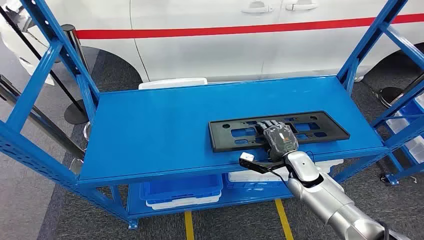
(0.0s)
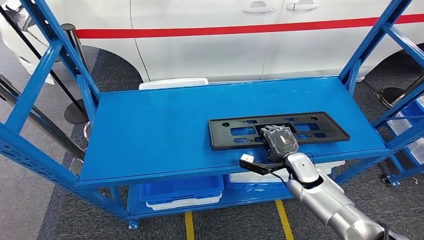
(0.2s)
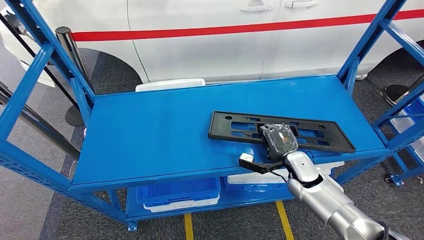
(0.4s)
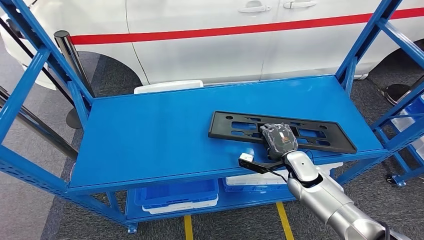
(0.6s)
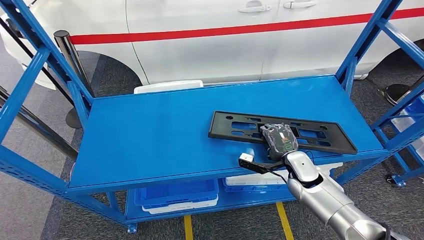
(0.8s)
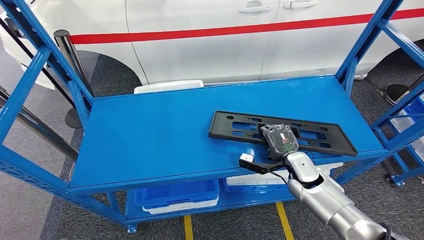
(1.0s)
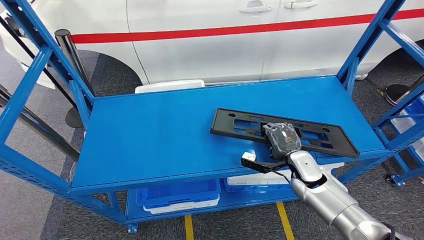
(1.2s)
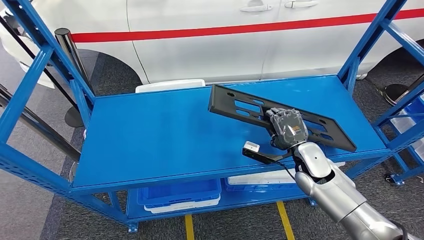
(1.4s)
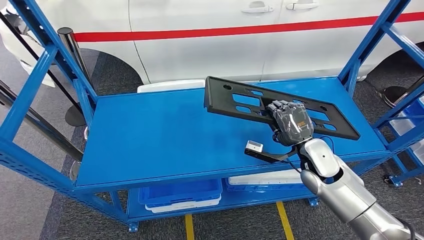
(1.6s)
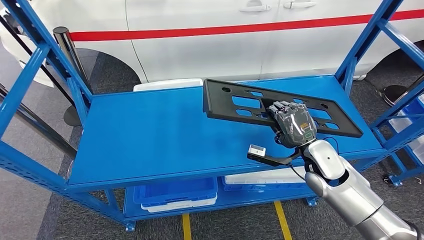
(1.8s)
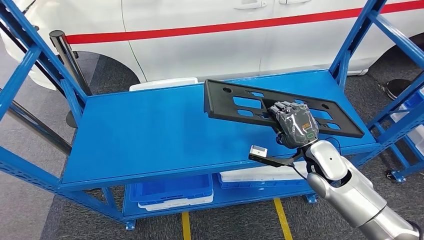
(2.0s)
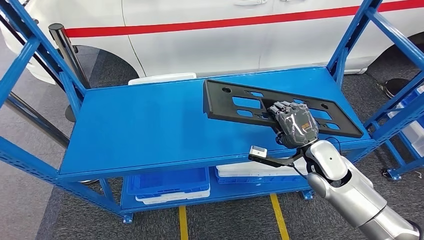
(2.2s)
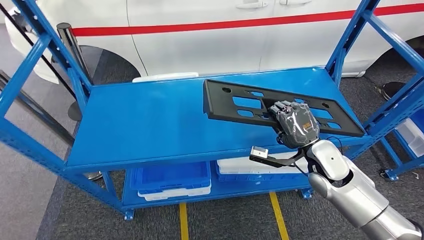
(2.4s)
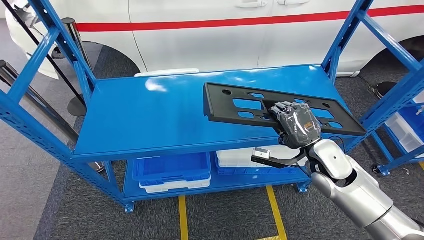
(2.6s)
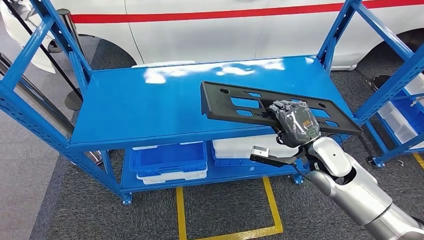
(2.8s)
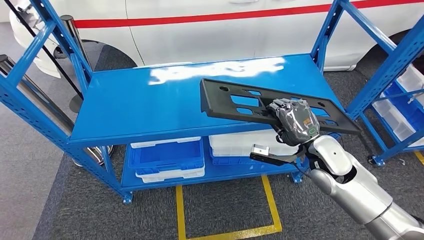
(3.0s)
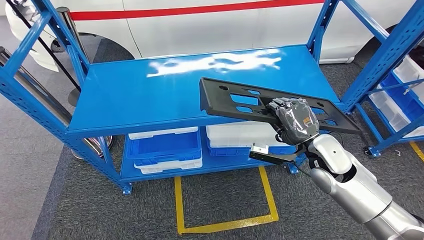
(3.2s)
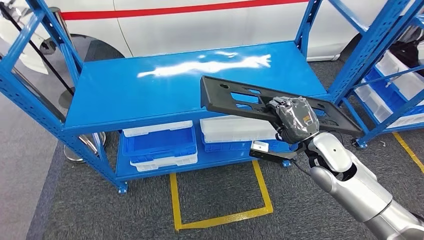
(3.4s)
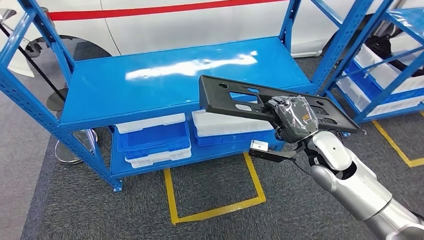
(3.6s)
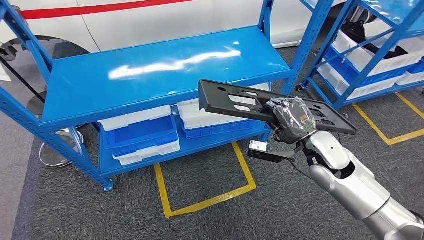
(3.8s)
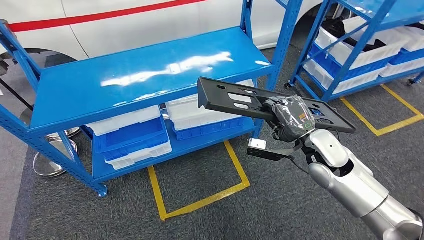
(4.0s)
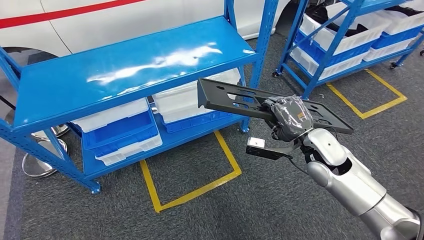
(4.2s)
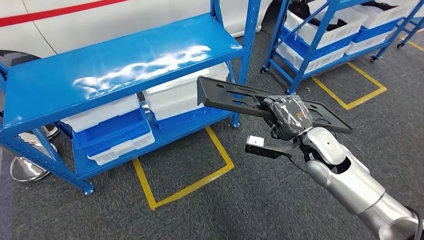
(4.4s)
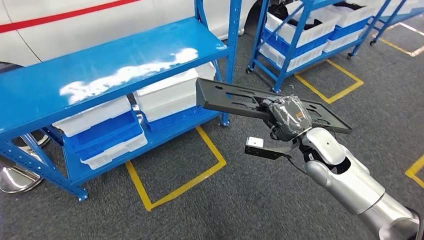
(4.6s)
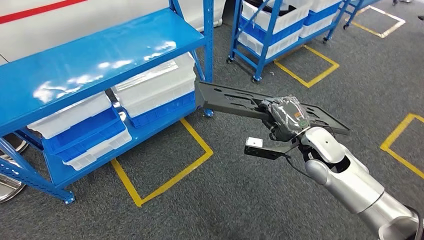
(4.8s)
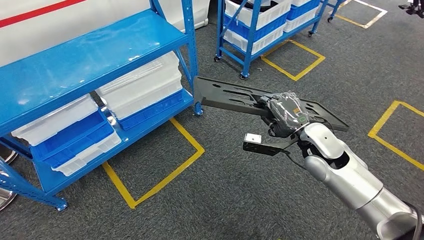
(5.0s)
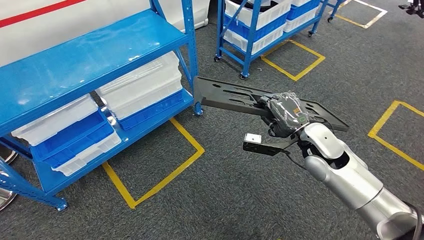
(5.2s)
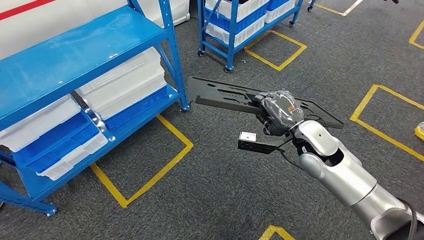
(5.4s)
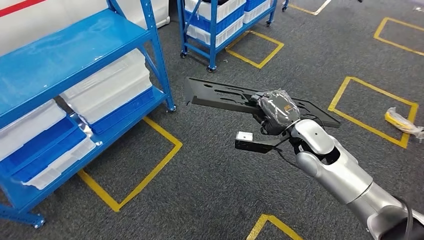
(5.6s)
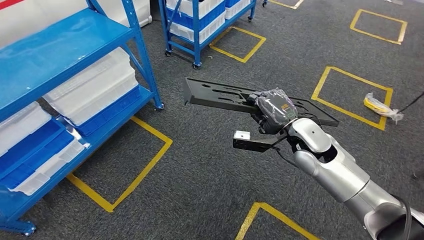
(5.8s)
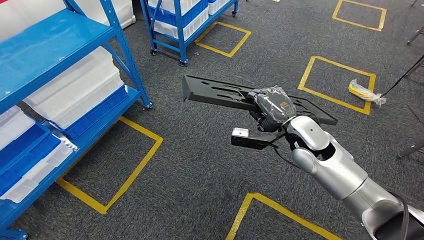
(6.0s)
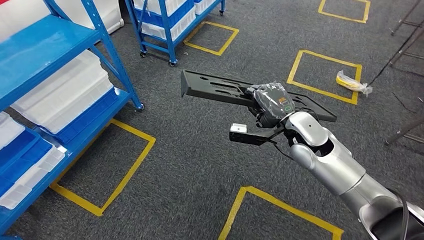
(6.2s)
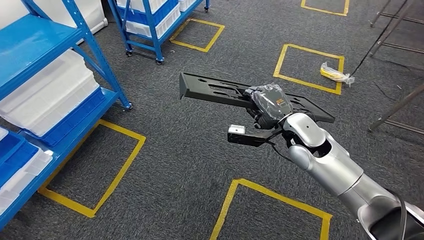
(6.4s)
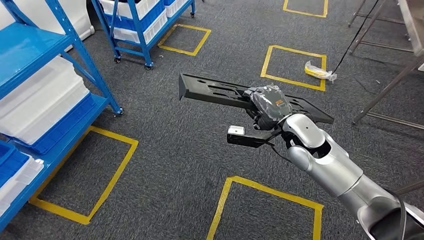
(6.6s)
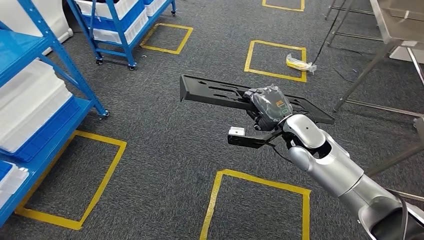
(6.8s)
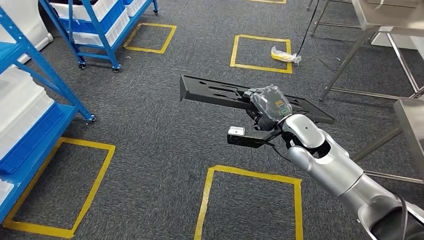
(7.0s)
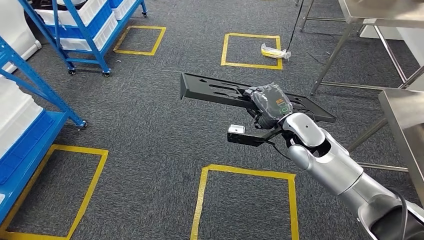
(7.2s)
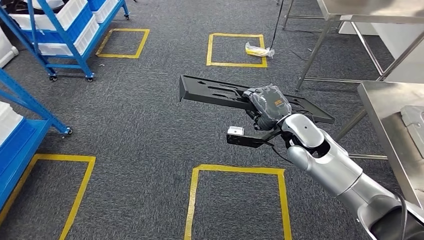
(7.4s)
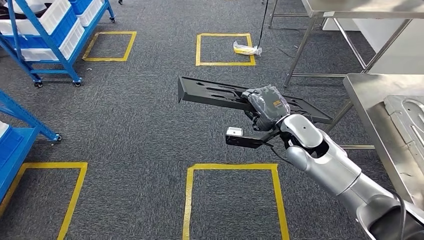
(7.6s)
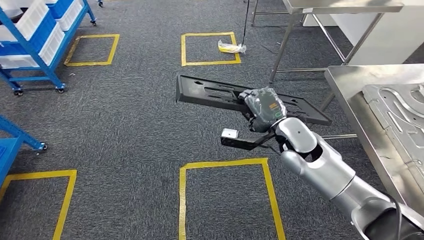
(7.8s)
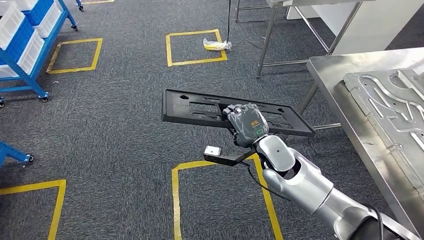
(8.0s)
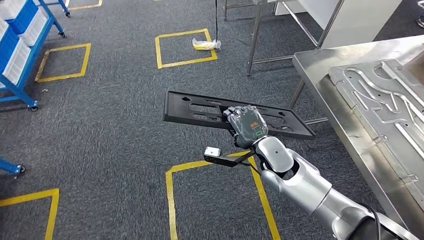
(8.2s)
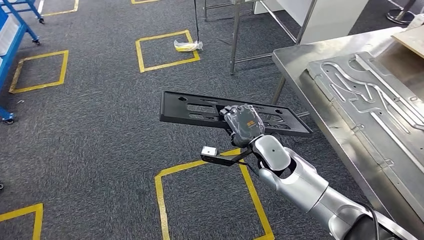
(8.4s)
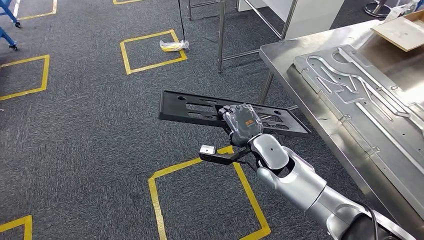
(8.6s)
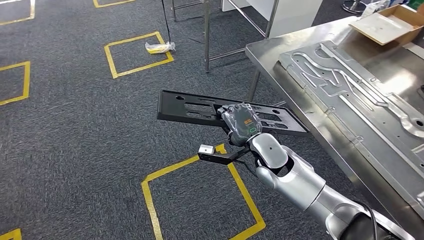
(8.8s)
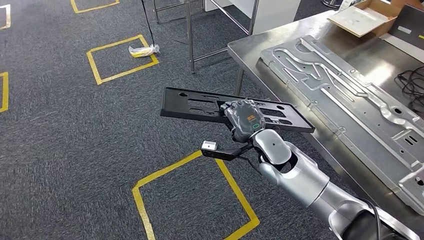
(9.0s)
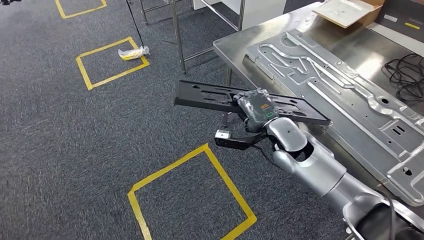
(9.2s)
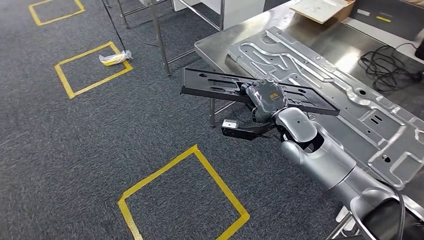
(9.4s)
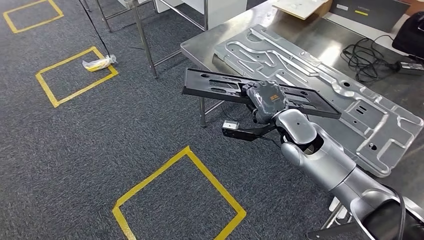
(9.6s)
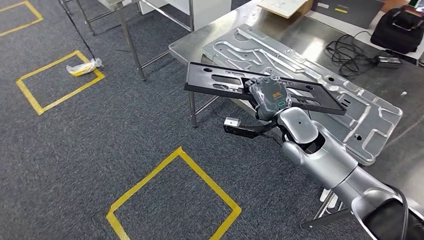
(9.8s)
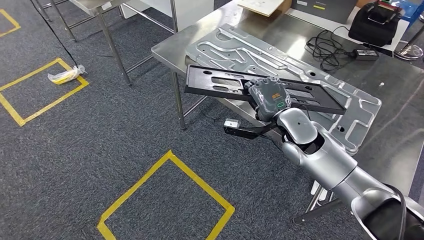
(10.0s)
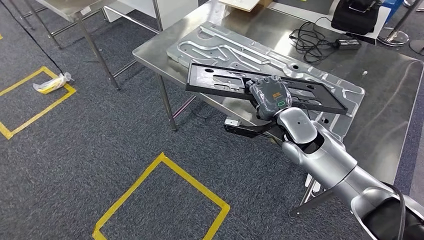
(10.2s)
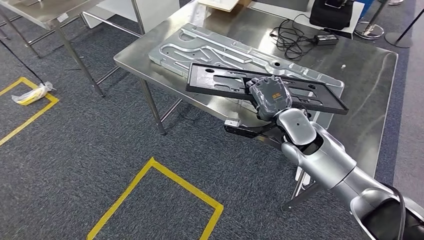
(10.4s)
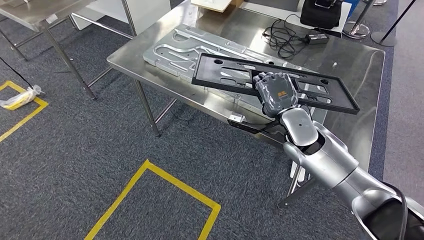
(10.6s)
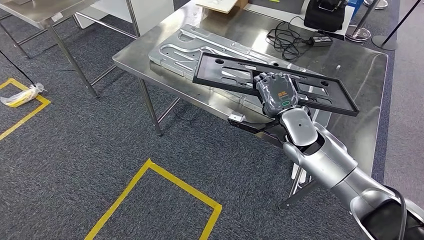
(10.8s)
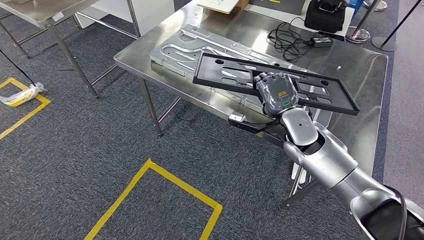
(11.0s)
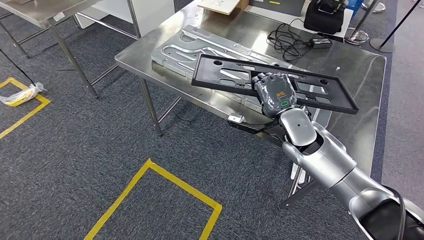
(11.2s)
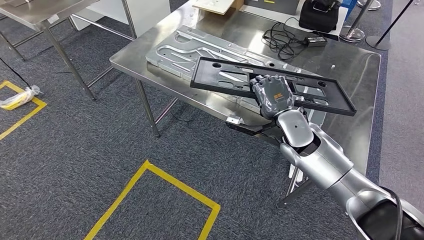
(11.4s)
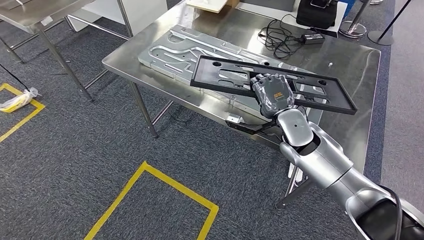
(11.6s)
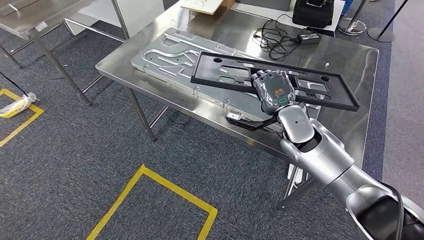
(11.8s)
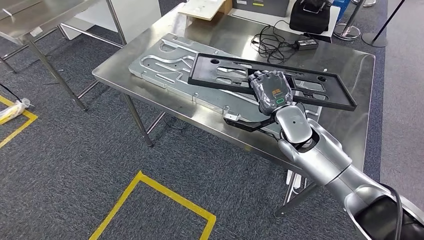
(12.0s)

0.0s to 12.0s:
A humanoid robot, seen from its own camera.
Step, 0.0s to 2.4s: Pick up the large material from the shelf.
Step, 4.2s to 11.6s: Move the large material to the front of the workbench.

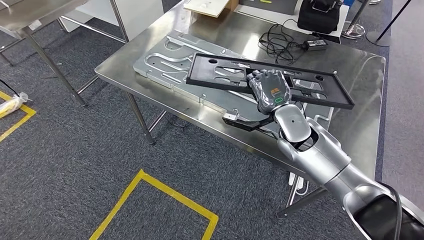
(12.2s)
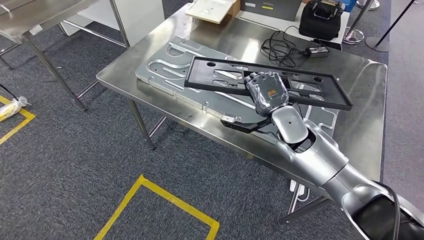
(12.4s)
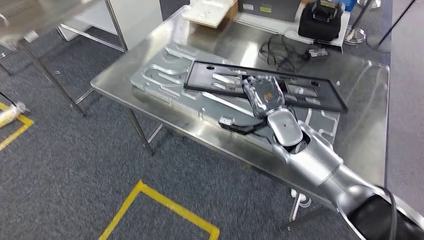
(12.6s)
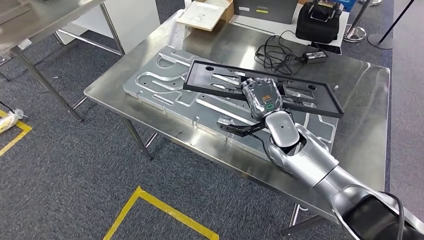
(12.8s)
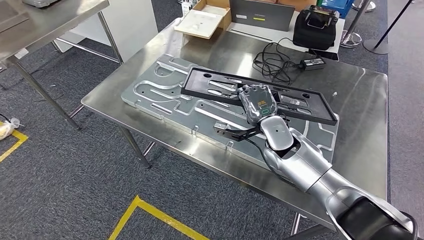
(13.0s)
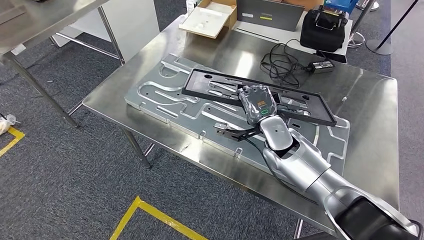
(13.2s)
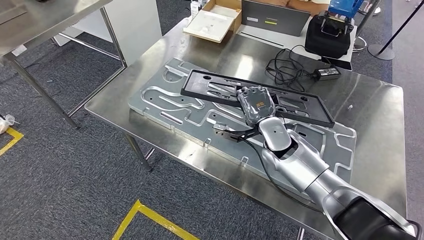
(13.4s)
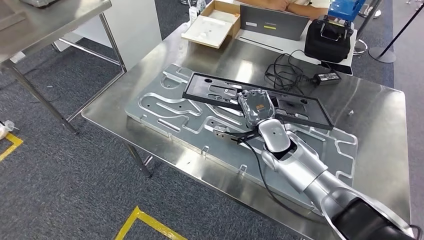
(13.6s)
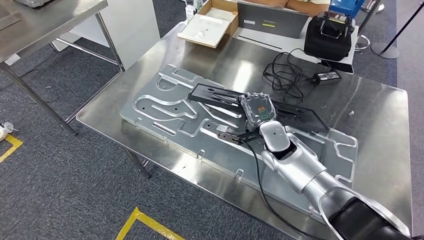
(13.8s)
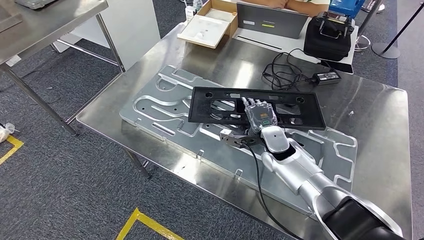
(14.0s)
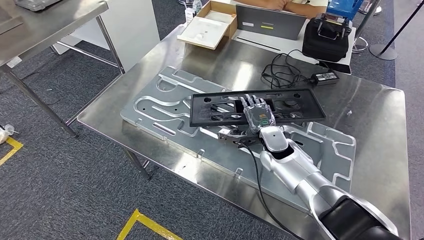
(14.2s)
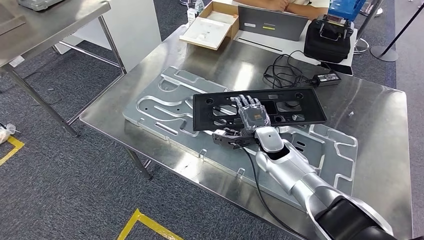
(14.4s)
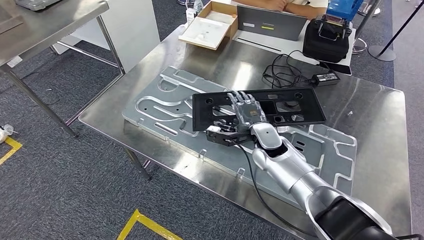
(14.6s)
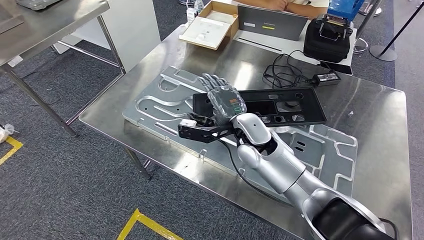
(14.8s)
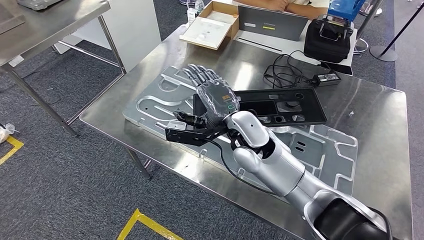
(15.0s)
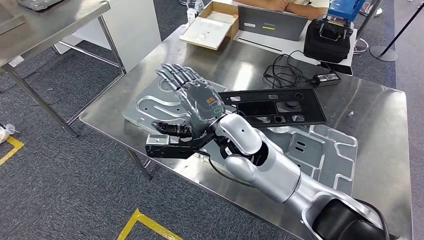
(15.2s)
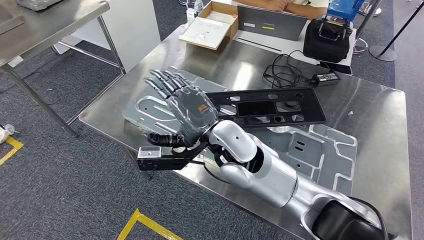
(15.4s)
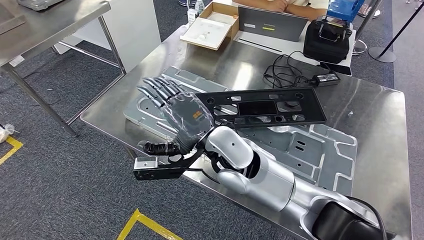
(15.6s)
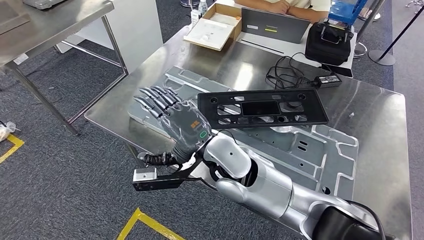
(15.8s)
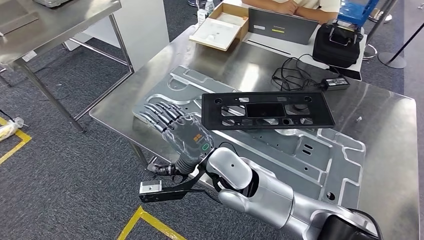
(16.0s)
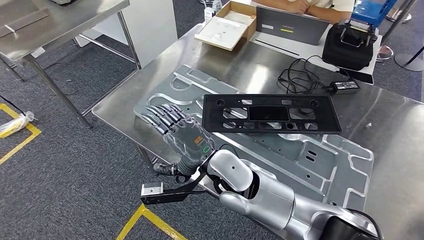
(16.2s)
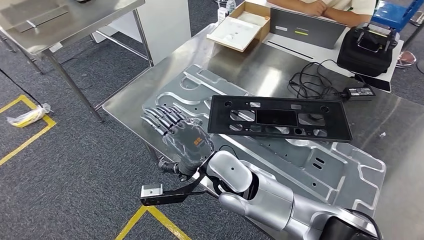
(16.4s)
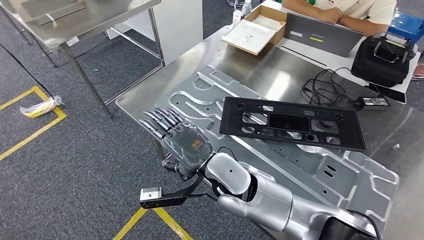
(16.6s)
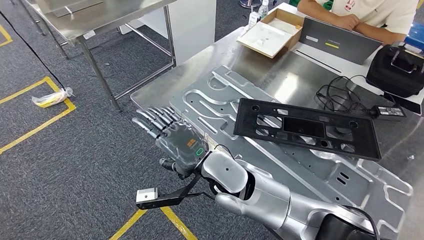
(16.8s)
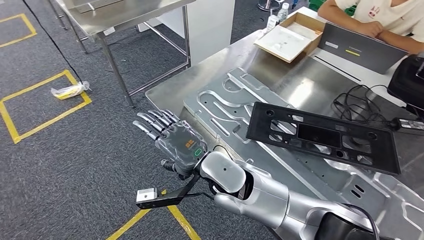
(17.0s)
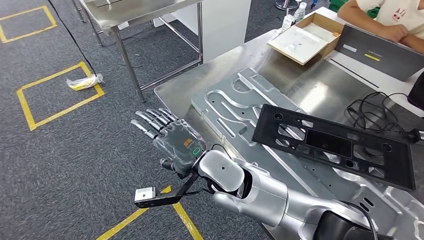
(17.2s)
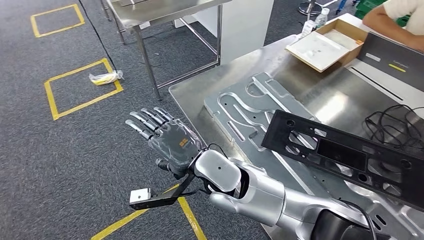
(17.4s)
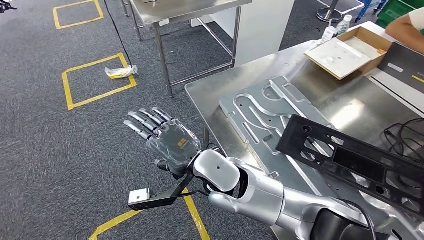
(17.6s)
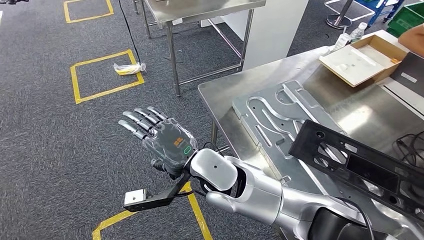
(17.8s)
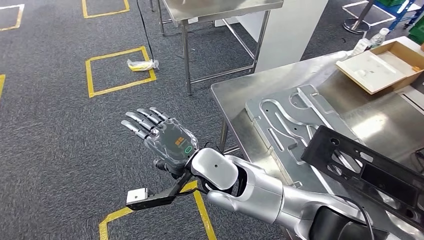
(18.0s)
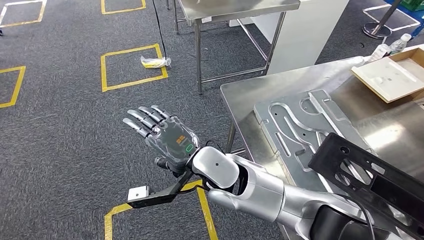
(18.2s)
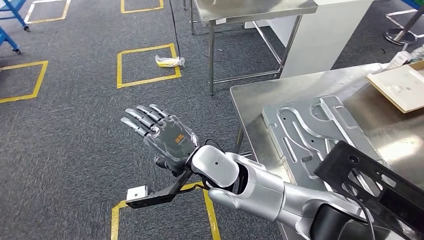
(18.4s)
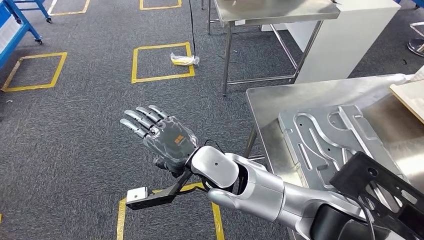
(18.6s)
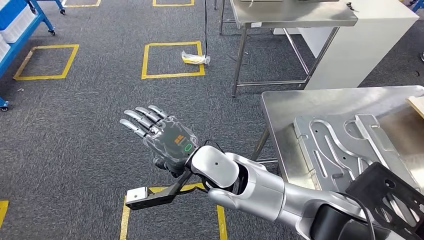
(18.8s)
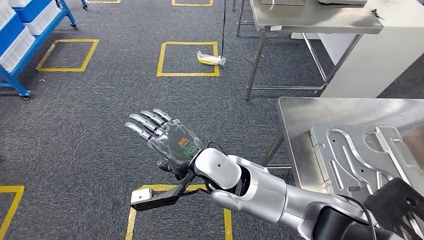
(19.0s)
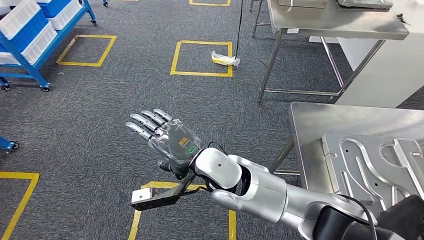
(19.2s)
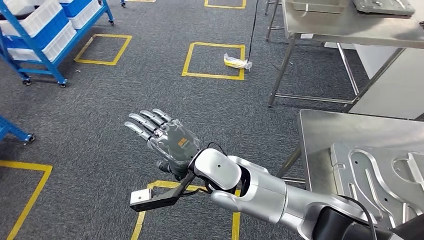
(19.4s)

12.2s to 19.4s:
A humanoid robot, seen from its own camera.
Step, 12.6s to 15.6s: Insert the large material into the corresponding hole on the workbench.
